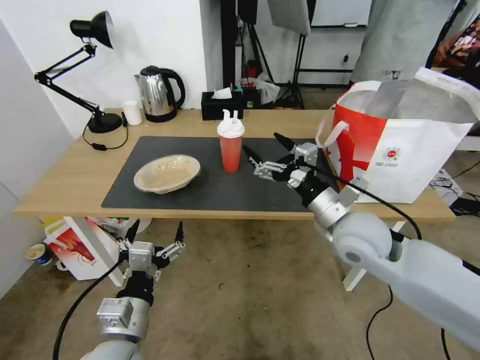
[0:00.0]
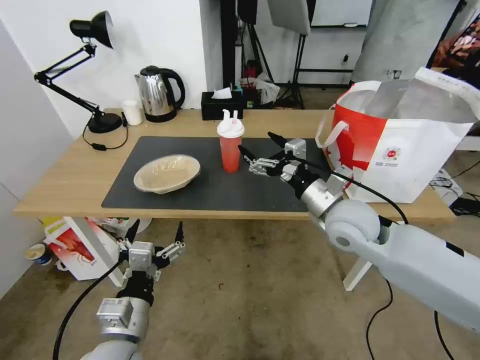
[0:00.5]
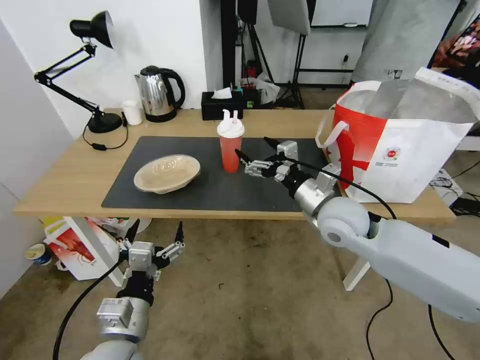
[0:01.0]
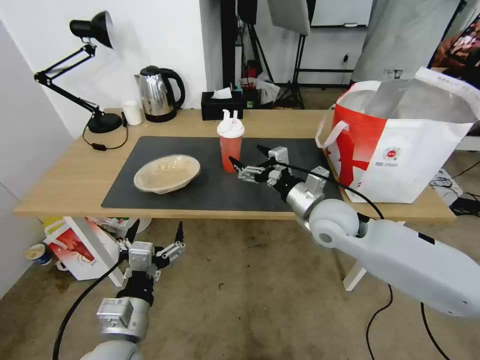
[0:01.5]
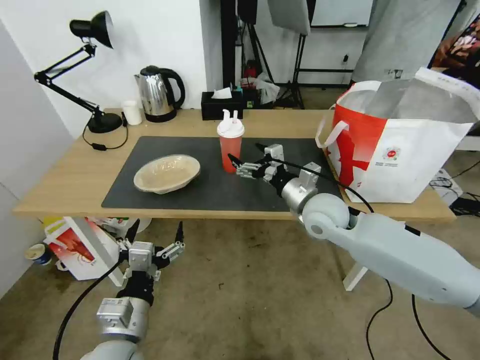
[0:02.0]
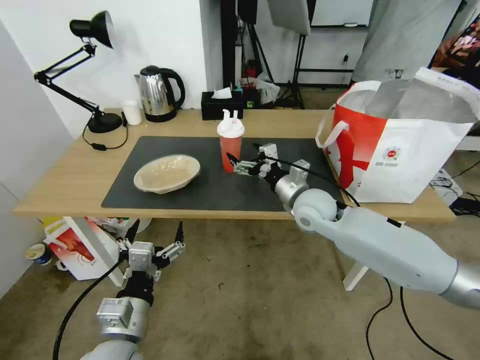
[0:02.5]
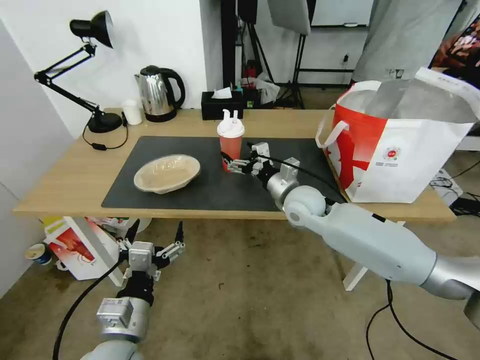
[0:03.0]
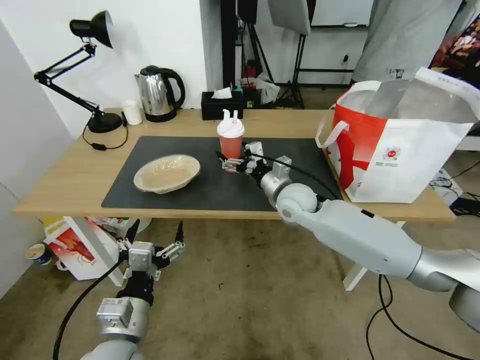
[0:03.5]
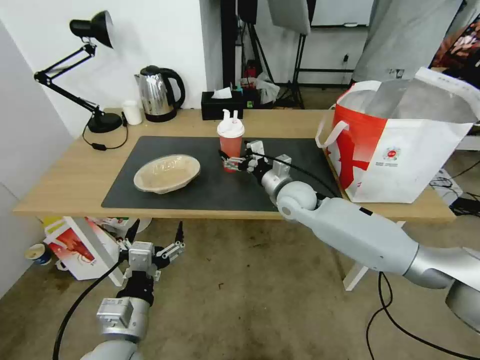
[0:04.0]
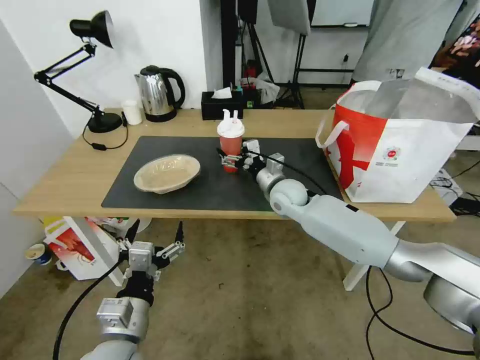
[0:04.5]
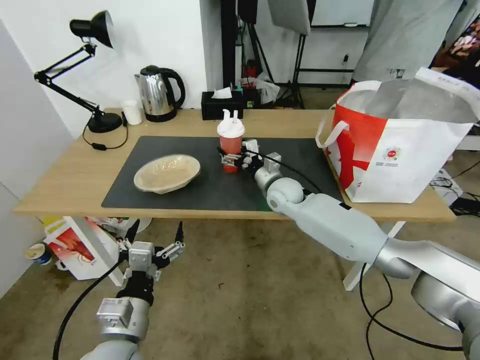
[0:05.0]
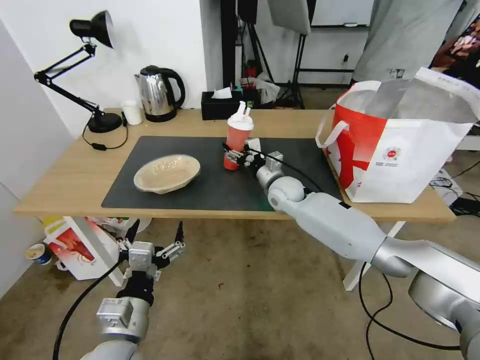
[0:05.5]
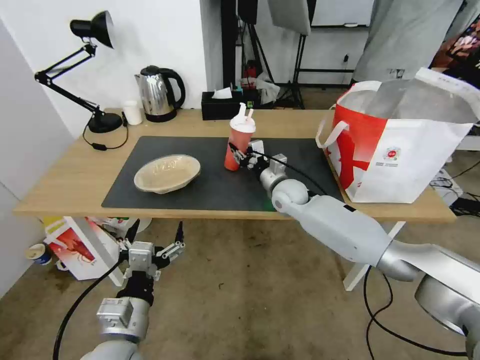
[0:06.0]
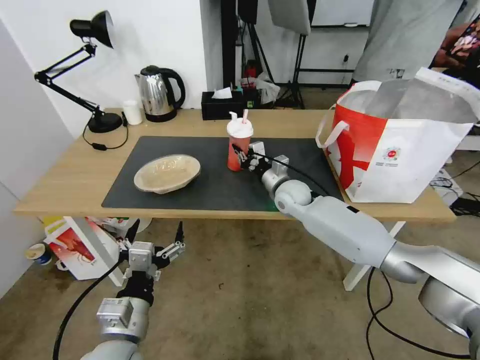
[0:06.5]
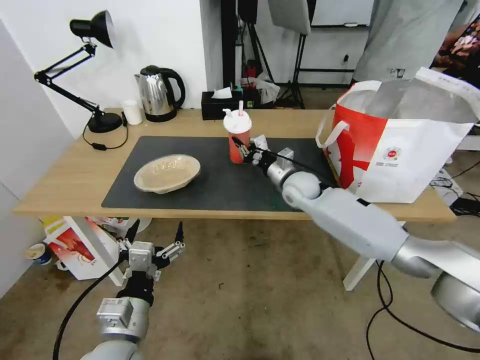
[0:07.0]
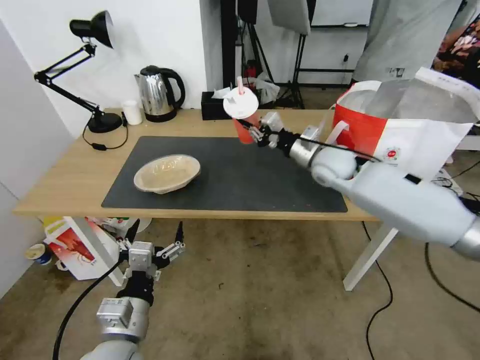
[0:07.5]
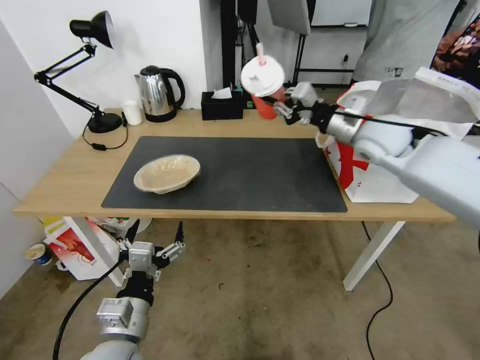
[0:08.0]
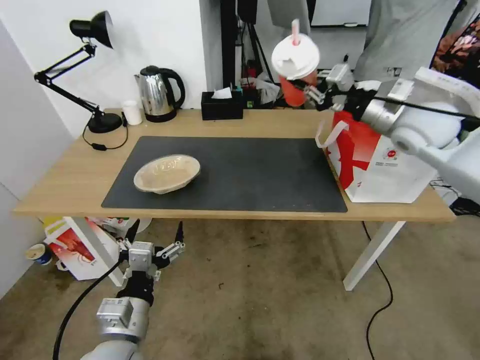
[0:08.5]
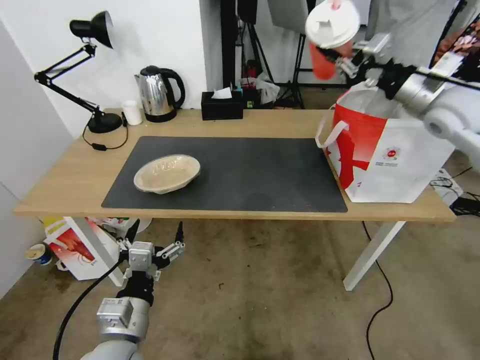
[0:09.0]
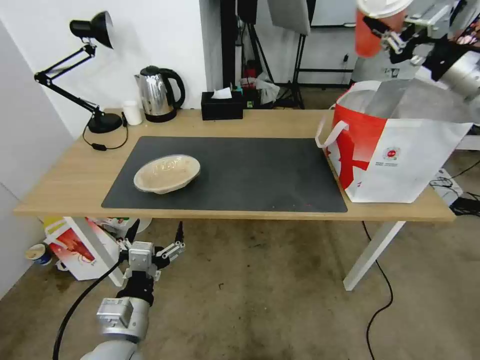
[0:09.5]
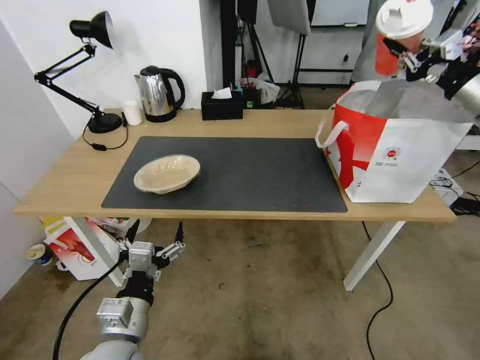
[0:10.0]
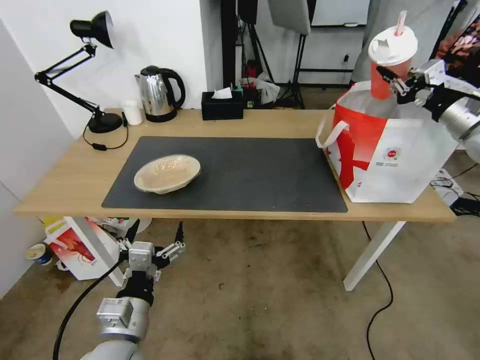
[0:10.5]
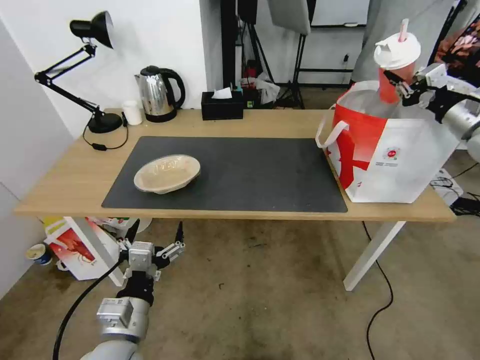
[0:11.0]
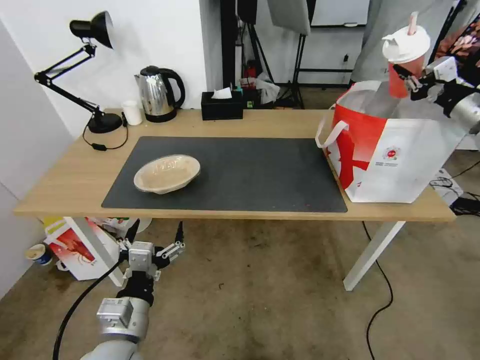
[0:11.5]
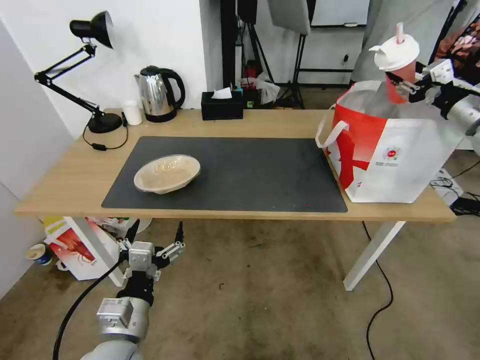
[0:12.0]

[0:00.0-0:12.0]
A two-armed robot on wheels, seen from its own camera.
Task of the whole recording: Pick up the trash from the table and place it into the takeout bag.
0.0 to 2.0 s: The right gripper heads forward, covering some 5 cm.
2.0 to 4.0 s: The right gripper travels forward by about 5 cm.
4.0 to 6.0 s: The right gripper shifts by roughly 5 cm, and closes its fingers.
6.0 to 8.0 s: The right gripper moves upward and to the right, roughly 25 cm.
8.0 to 10.0 s: The right gripper goes about 20 cm to the right.
10.0 to 12.0 s: The grippers make only small movements.

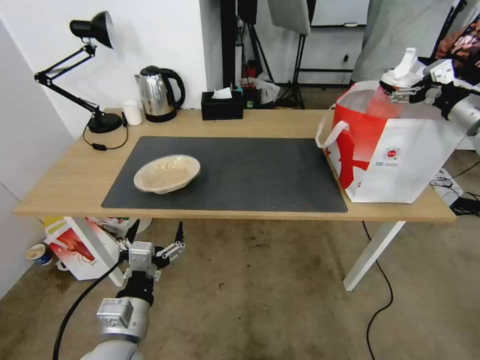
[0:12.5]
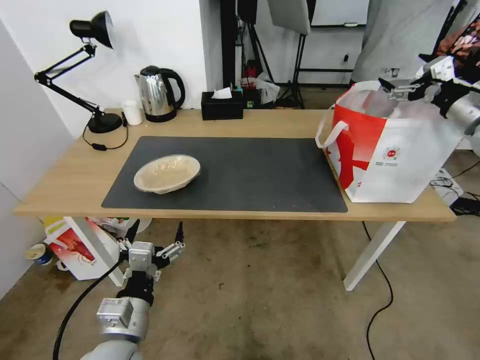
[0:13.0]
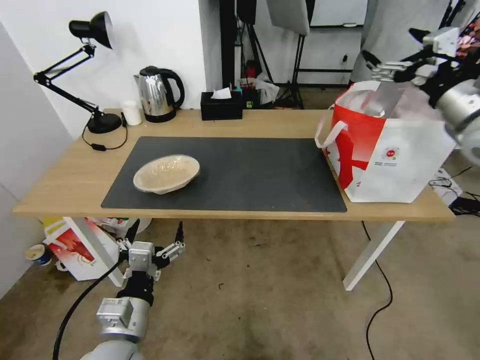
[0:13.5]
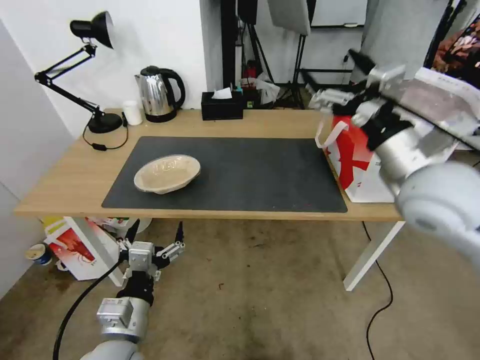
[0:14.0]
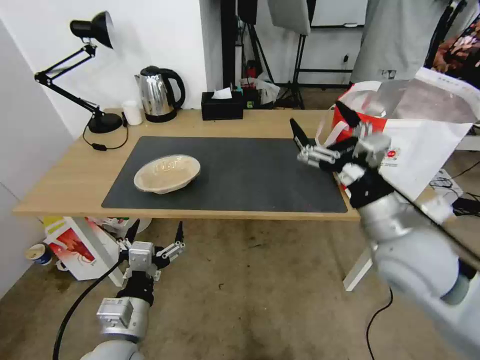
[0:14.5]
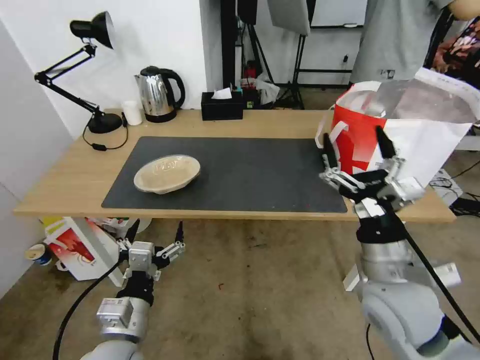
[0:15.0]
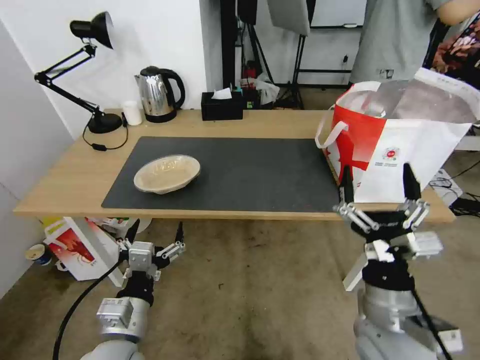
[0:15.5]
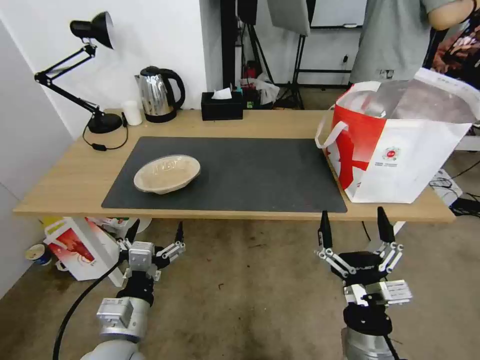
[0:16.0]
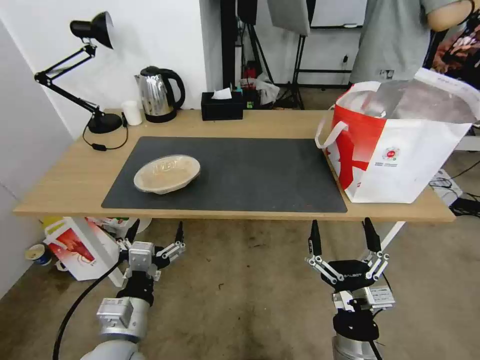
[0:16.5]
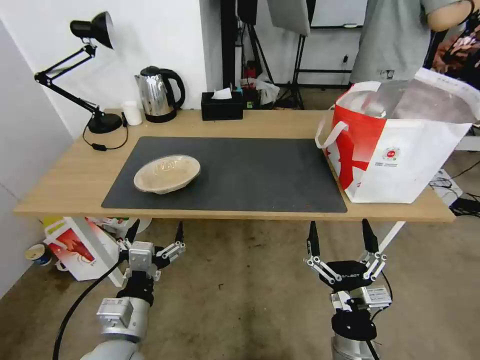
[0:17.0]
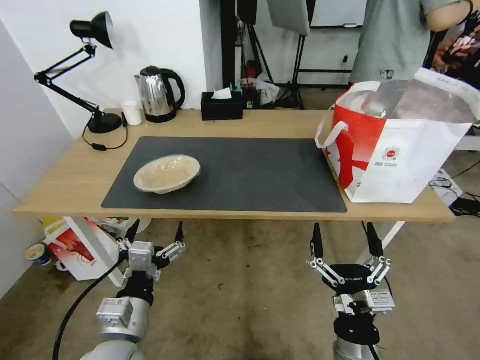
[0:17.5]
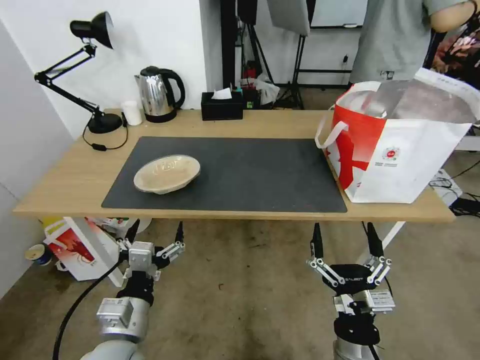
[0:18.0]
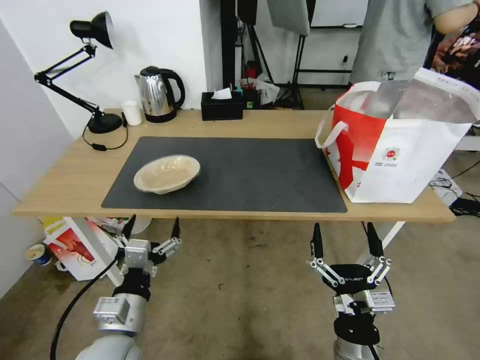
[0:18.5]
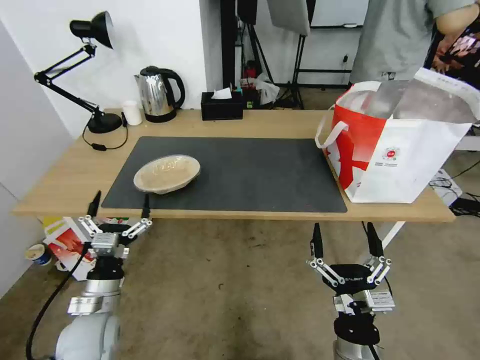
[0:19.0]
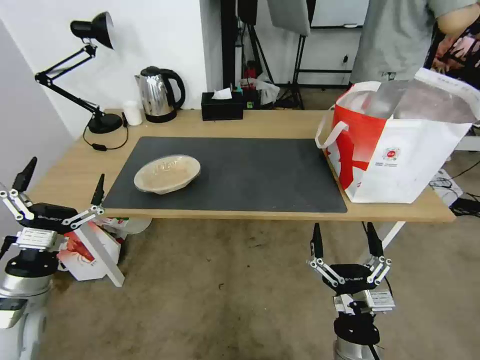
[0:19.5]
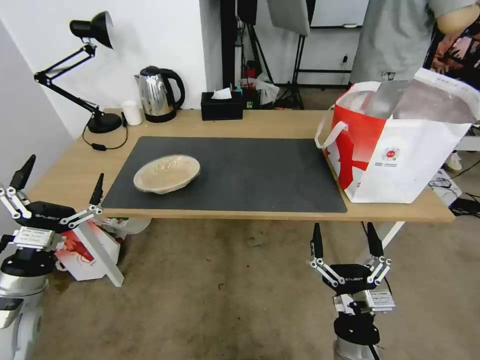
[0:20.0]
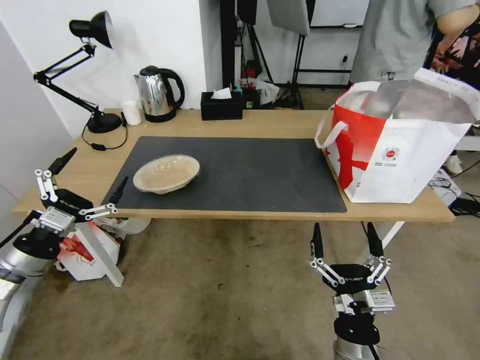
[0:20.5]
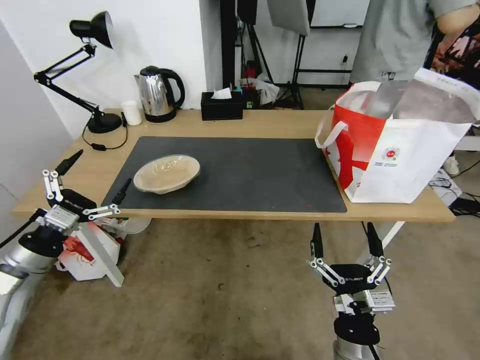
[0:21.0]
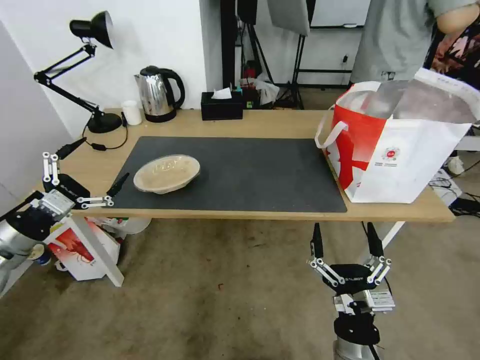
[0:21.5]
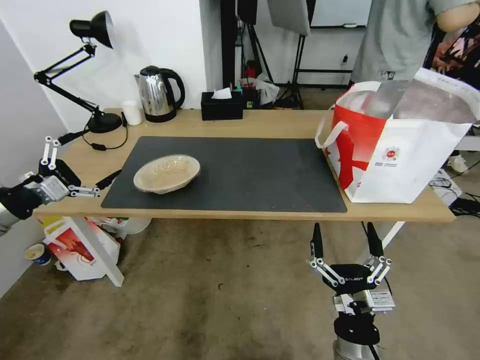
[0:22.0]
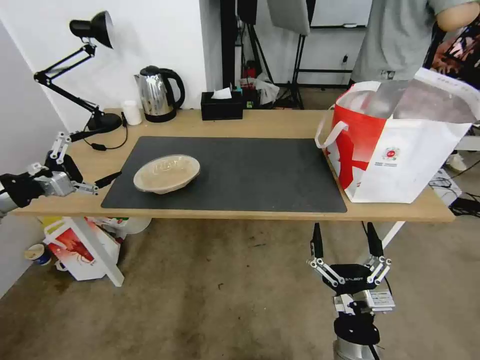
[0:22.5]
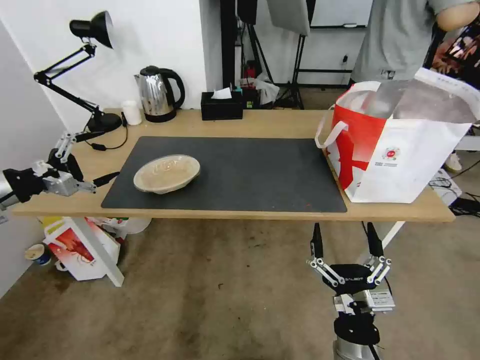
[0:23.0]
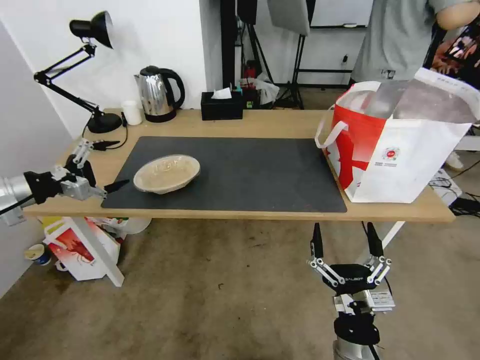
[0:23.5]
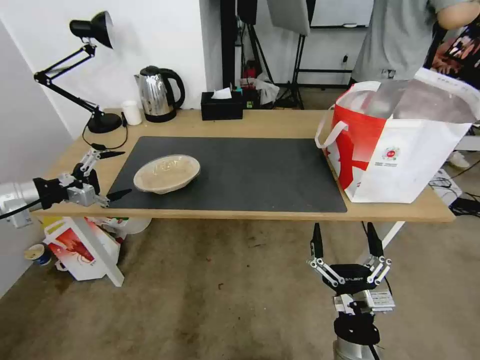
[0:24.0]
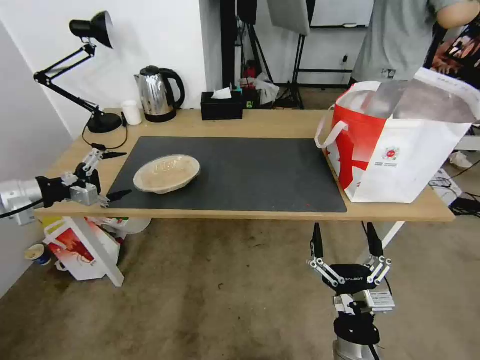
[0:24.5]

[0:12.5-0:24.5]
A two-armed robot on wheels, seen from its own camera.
Task of the whole recording: Pick up the trash from the table and place it into the takeout bag.
12.5 to 14.5 s: The right gripper is displaced to the left and backward by approximately 30 cm.
14.5 to 16.5 s: The right gripper is displaced downward and backward by about 25 cm.
16.5 to 18.5 s: The grippers move only a little.
18.5 to 20.5 s: The left gripper goes approximately 20 cm to the left.
20.5 to 22.5 s: The left gripper travels upward, forward and to the left by approximately 15 cm.
22.5 to 24.5 s: There are only small adjustments of the grippers.

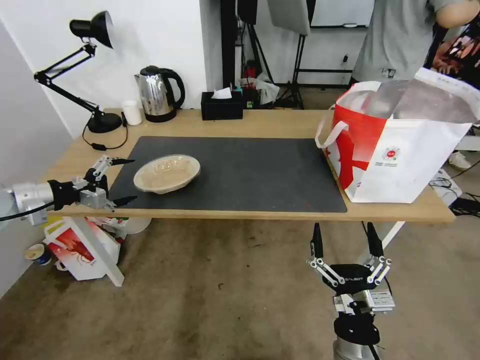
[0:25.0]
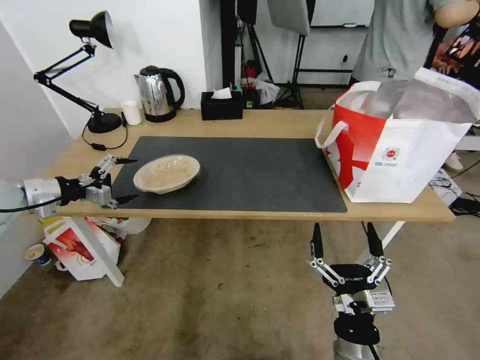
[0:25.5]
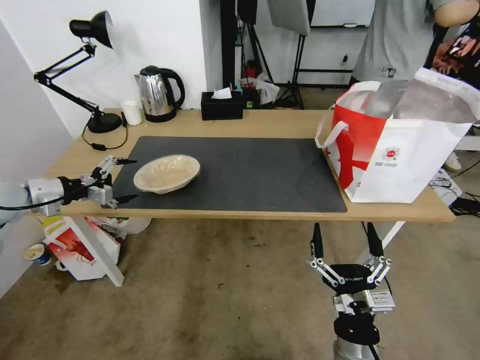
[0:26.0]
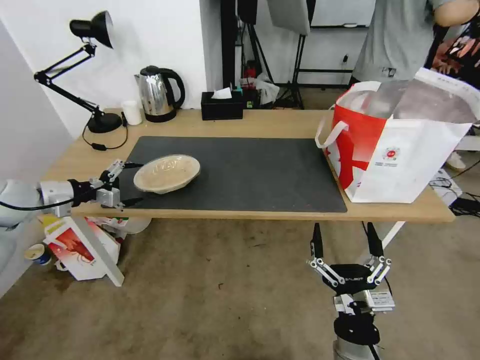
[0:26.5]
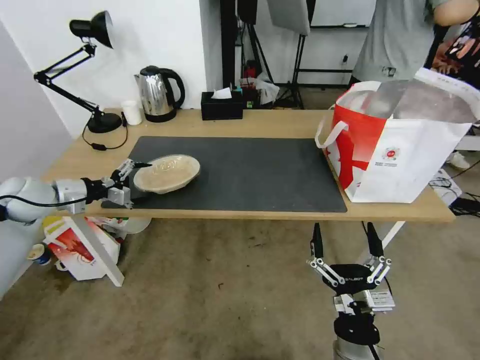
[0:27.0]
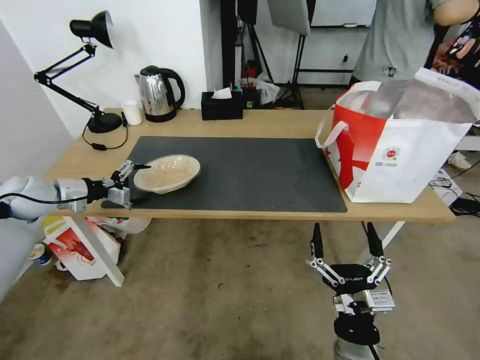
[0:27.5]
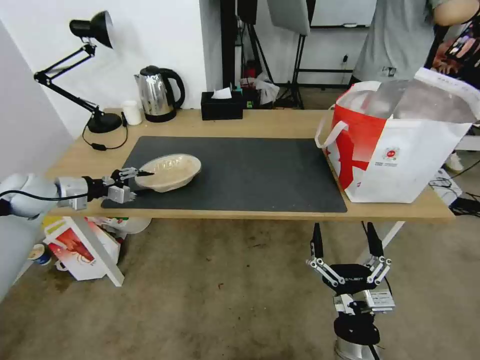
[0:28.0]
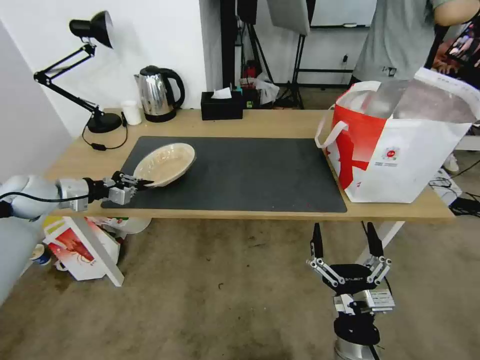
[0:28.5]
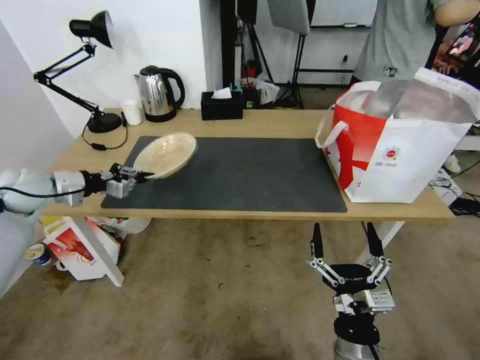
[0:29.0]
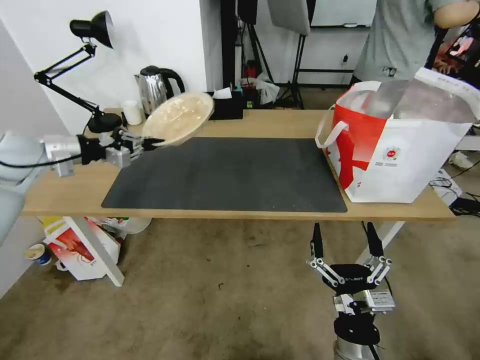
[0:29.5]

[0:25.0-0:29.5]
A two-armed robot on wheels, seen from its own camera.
Task of the whole recording: Pick up the trash from the table and place it into the takeout bag.
25.0 to 27.0 s: The left gripper goes roughly 5 cm forward.
27.0 to 29.5 s: The left gripper is displaced upward by approximately 10 cm, and closes up.
